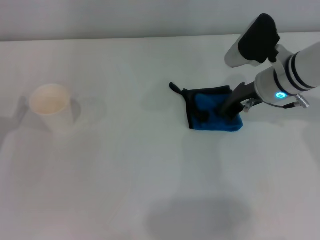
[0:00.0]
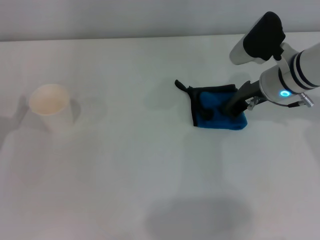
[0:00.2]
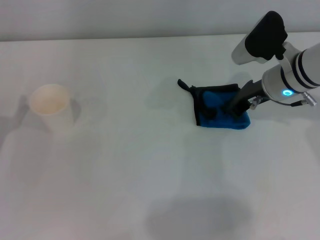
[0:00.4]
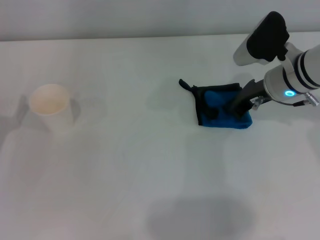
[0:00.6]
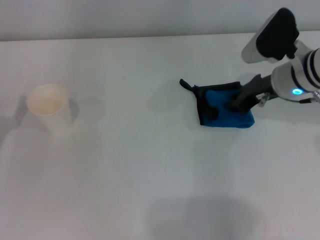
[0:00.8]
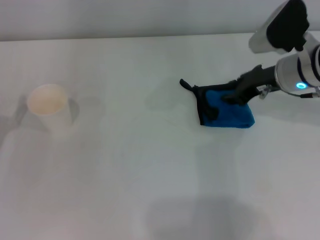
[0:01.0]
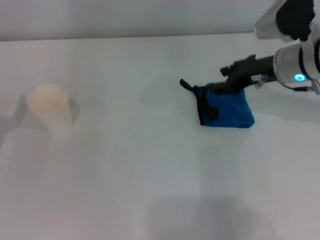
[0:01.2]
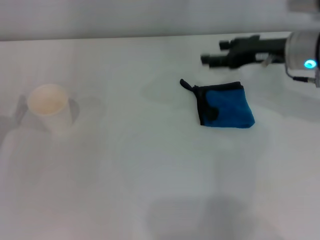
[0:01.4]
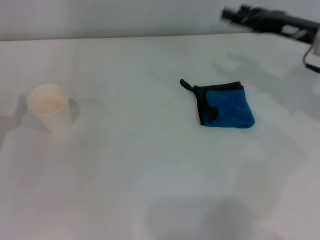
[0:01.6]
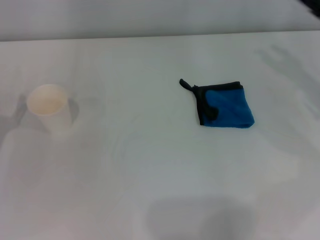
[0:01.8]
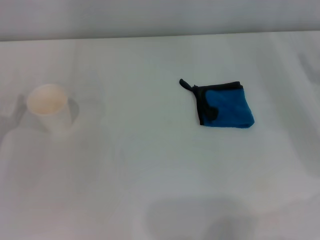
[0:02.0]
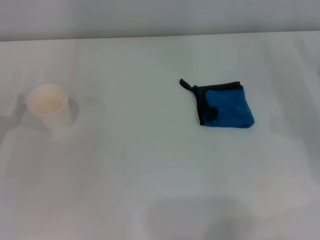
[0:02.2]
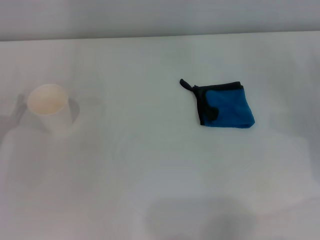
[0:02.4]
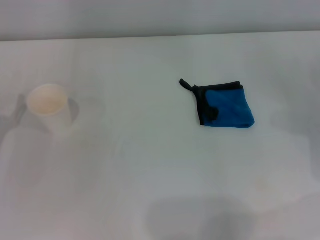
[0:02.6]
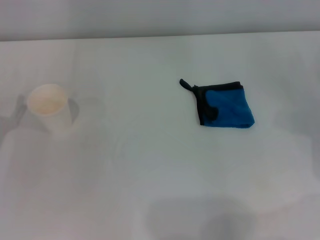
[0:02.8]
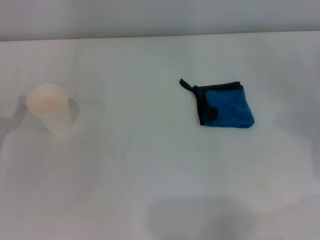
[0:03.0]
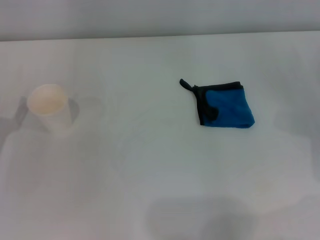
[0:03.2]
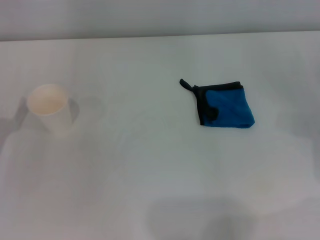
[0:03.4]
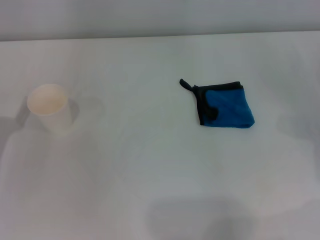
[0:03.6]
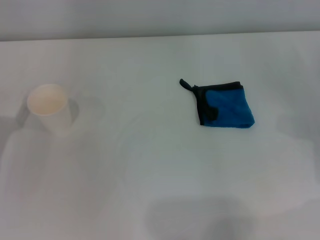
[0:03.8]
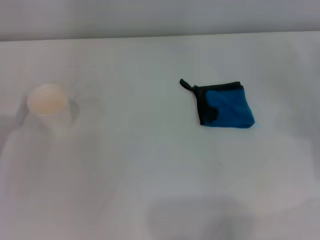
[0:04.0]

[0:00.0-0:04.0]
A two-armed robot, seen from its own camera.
Step, 0:00.0 to 0:00.6: Place the rag on the table with the right gripper.
0:00.0 to 0:01.4: The right gripper is displaced upward by approximately 5 cm, and opens up.
0:01.4 to 0:02.6: The right gripper shifts some 20 cm to the right, downward and backward.

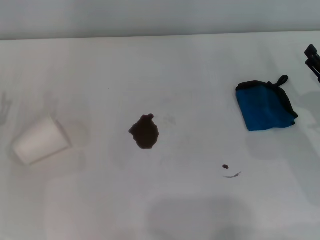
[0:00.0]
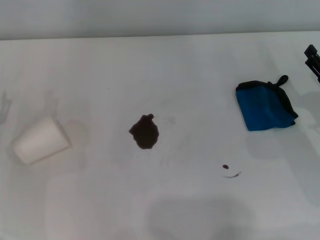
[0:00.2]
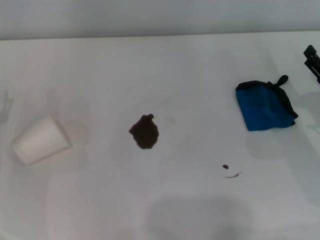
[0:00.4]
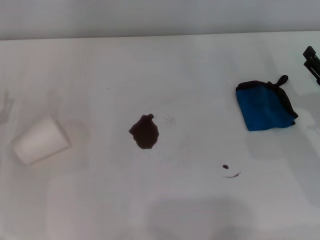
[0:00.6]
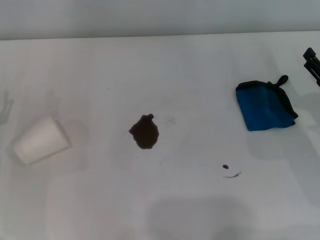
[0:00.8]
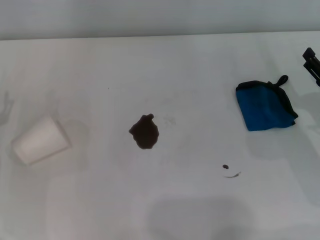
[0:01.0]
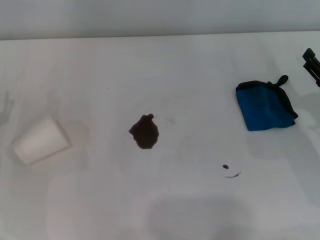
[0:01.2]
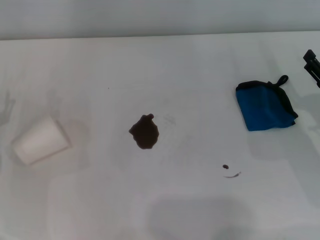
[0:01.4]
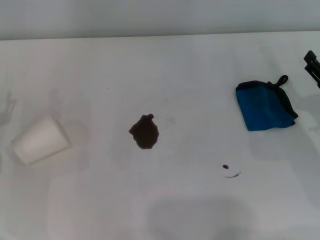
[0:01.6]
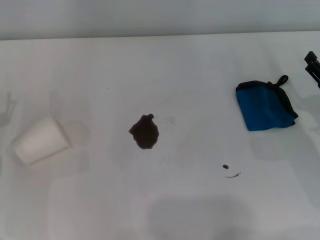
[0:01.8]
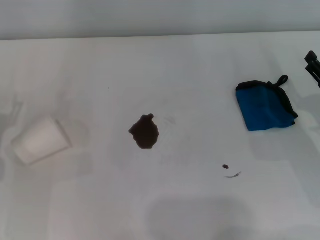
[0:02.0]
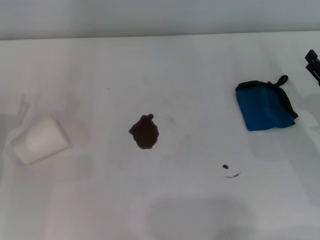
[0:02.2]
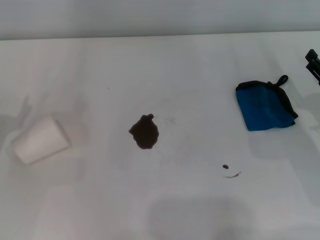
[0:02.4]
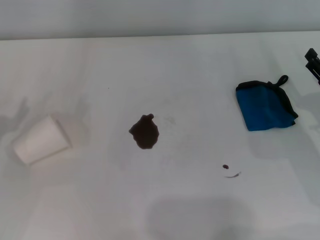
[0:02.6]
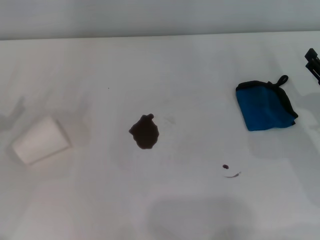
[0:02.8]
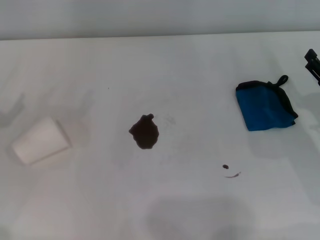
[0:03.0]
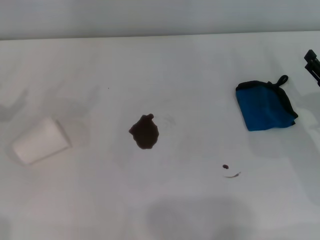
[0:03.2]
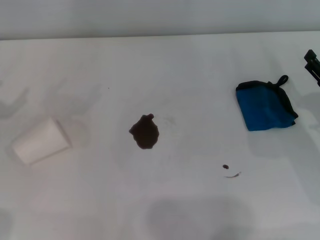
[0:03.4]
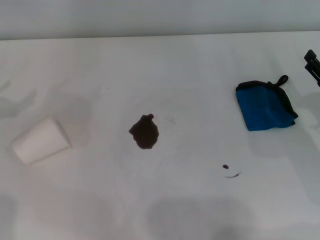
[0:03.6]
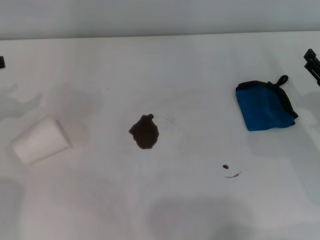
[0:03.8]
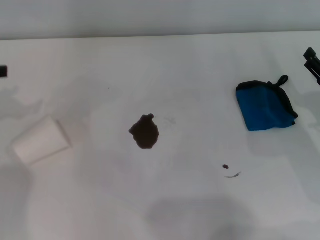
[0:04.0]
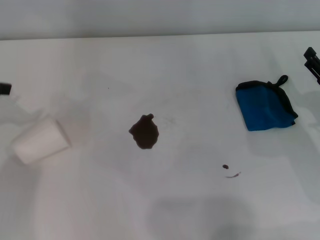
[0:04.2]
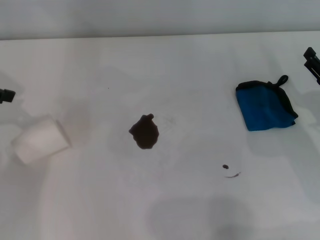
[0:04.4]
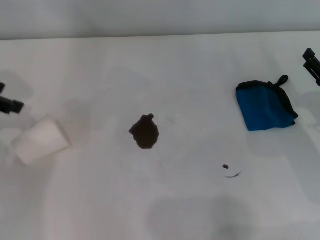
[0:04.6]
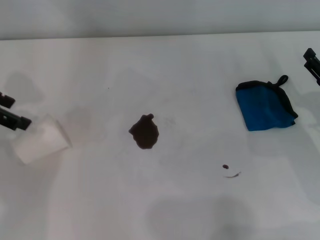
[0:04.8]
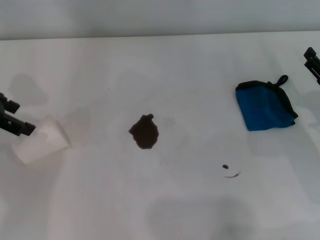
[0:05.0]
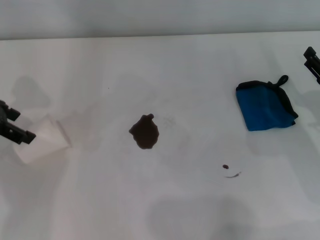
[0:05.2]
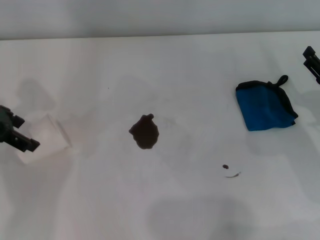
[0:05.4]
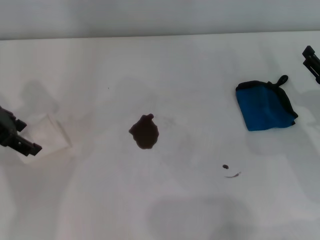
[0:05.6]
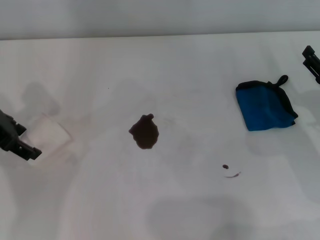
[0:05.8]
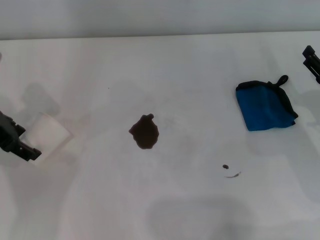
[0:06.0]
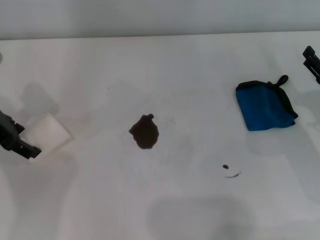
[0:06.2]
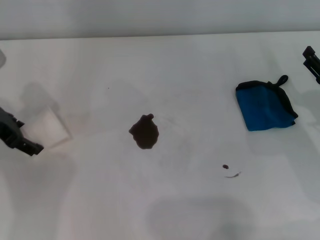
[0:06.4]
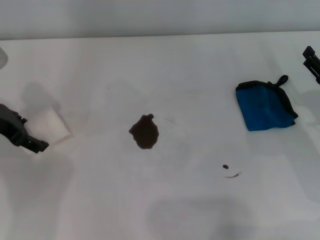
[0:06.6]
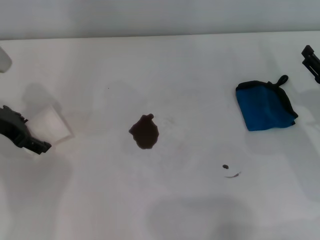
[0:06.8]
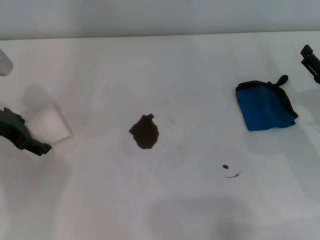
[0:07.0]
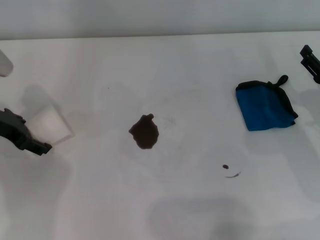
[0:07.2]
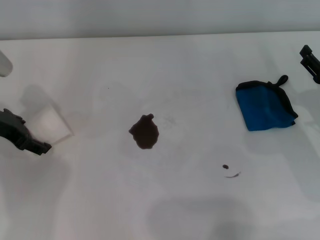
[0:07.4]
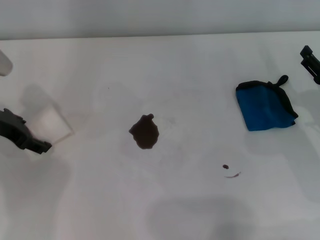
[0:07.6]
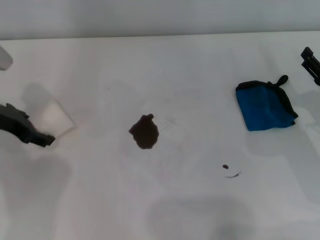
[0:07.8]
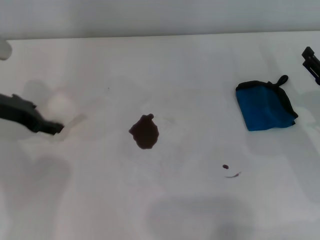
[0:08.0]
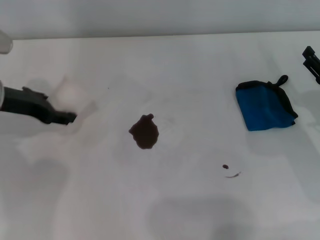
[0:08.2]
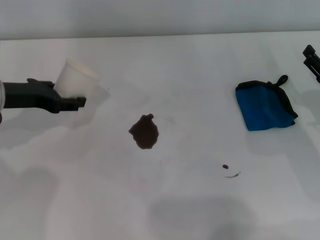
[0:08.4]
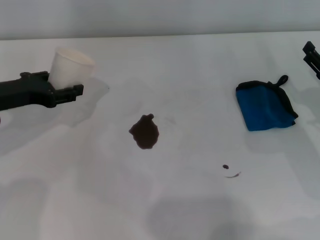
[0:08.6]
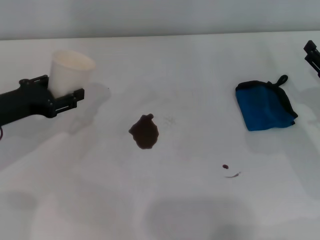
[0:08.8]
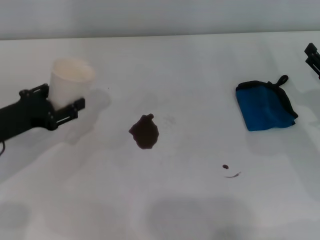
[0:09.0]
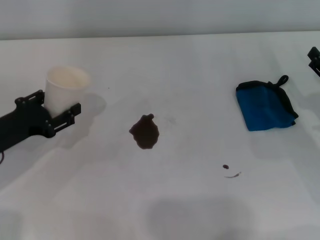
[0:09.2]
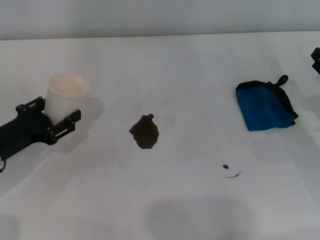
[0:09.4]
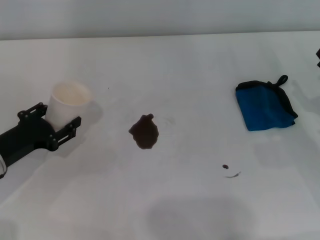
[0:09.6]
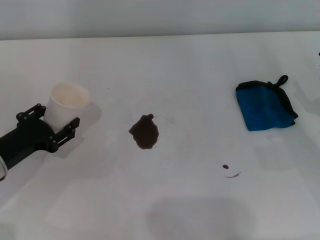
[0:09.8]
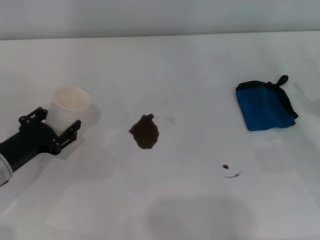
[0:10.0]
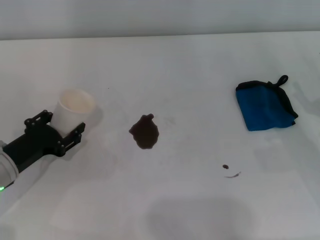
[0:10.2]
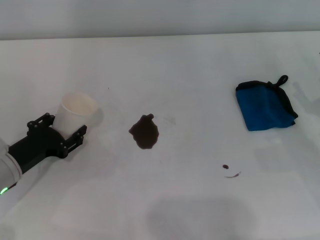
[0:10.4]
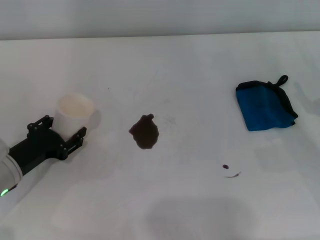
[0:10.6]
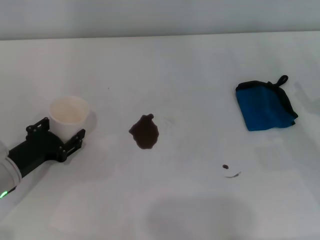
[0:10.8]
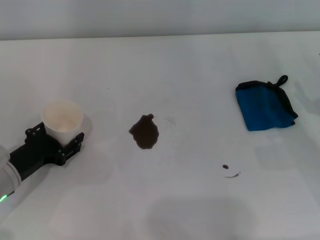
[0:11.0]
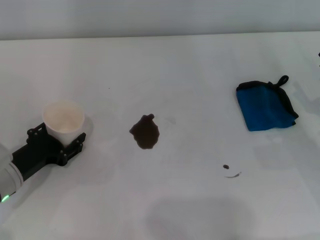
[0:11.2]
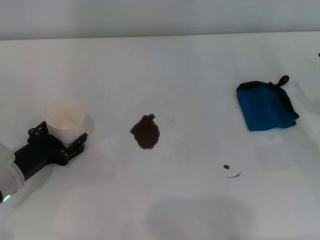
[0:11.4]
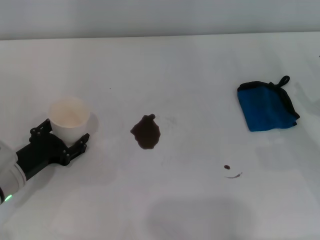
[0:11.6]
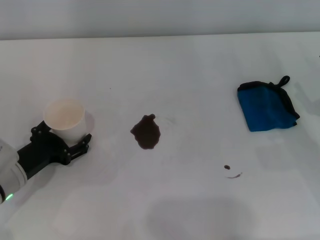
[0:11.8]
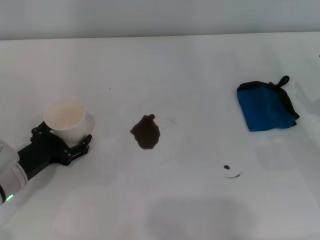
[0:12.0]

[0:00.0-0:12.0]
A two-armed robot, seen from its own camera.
Step, 0:00.0 to 0:07.4: Grasp the paper cup with the left gripper.
0:00.0 to 0:01.6: The two grippers keep their place.
0:04.4 to 0:06.0: The left gripper shifts roughly 10 cm to the right and downward.
0:06.0 to 0:07.6: The left gripper closes up.
0:07.6 to 0:09.0: The left gripper heads backward, covering approximately 5 cm, and closes up.
0:09.0 to 0:10.4: The left gripper shifts approximately 5 cm downward.
0:10.4 to 0:12.0: The left gripper opens.

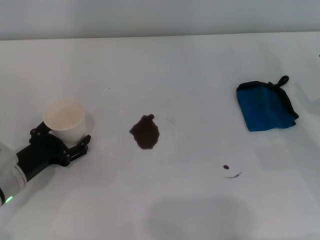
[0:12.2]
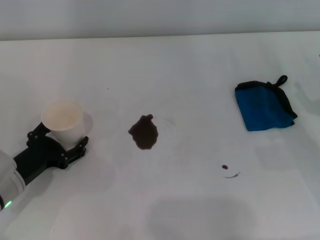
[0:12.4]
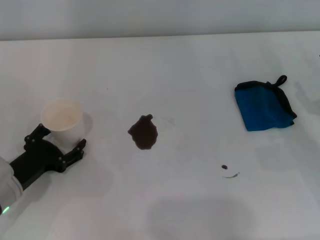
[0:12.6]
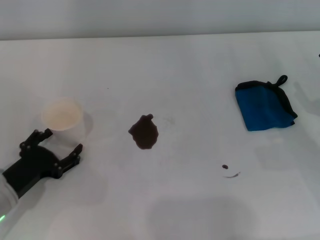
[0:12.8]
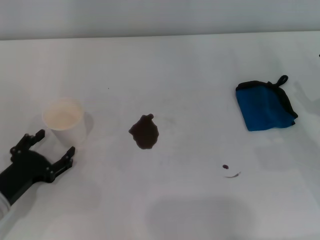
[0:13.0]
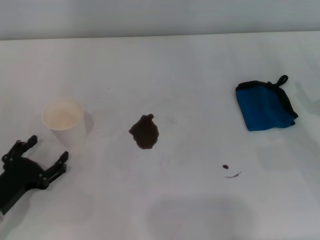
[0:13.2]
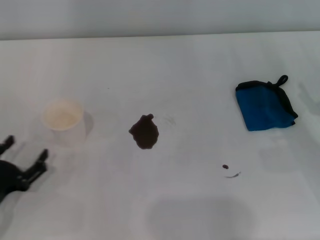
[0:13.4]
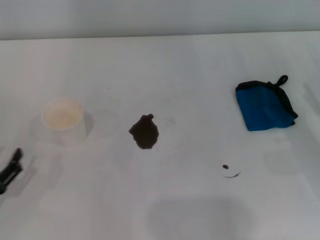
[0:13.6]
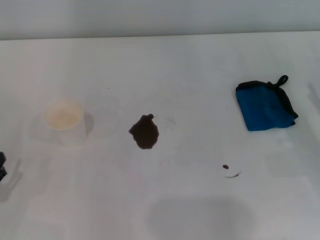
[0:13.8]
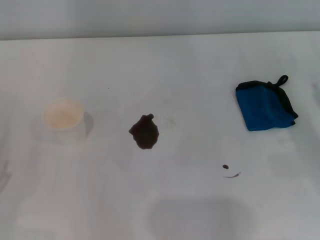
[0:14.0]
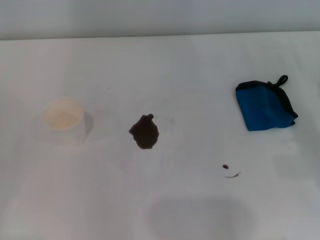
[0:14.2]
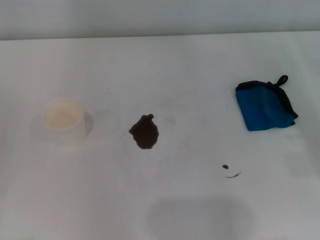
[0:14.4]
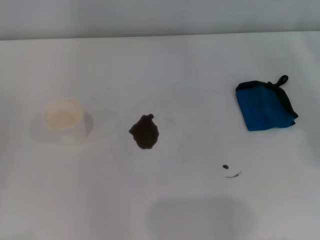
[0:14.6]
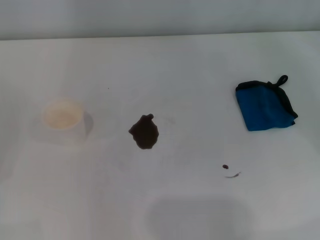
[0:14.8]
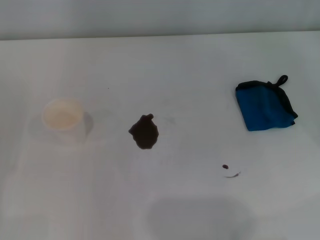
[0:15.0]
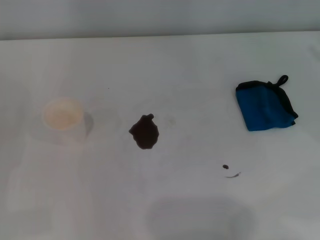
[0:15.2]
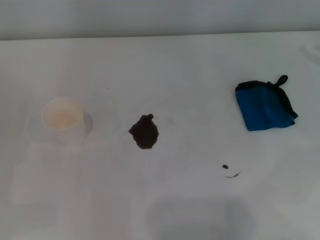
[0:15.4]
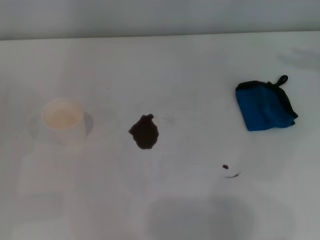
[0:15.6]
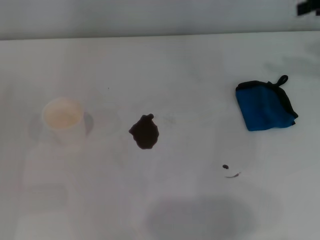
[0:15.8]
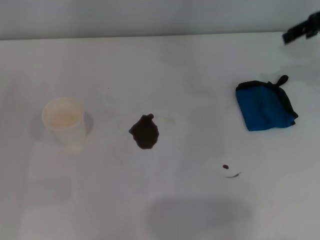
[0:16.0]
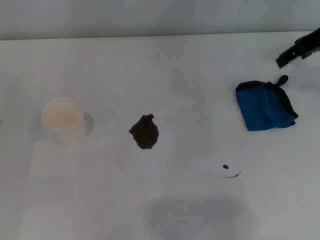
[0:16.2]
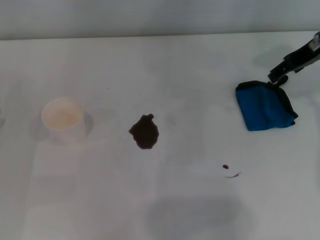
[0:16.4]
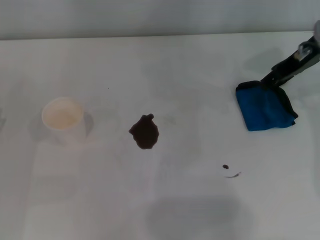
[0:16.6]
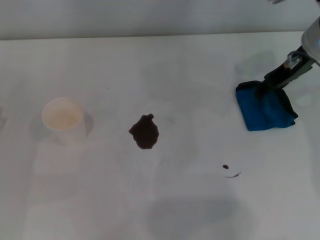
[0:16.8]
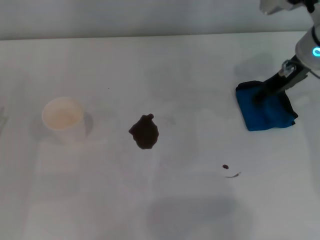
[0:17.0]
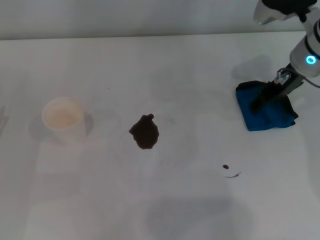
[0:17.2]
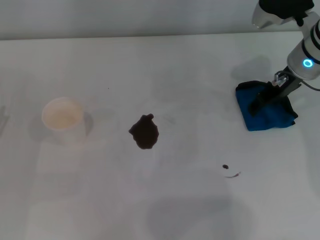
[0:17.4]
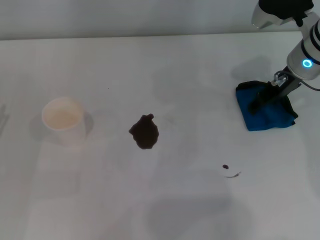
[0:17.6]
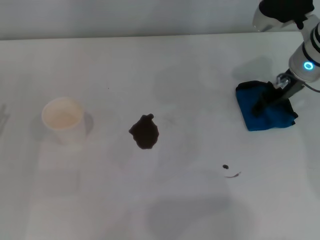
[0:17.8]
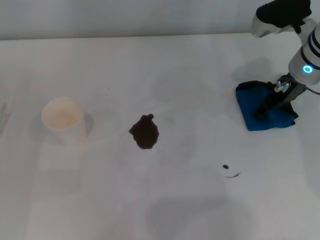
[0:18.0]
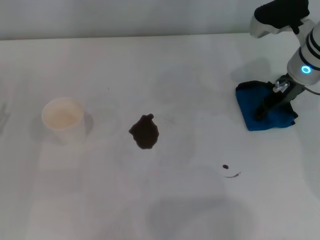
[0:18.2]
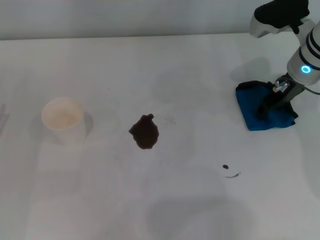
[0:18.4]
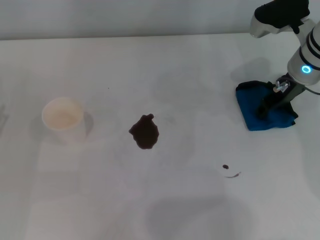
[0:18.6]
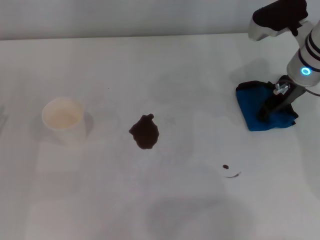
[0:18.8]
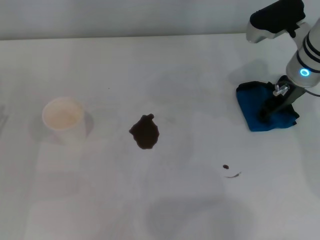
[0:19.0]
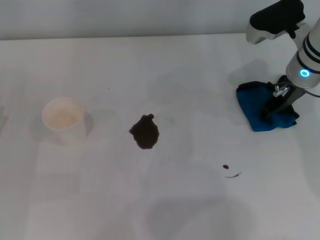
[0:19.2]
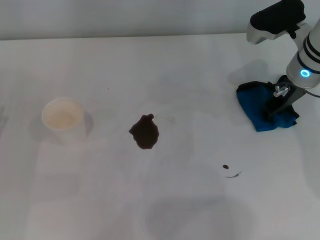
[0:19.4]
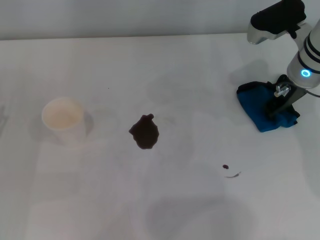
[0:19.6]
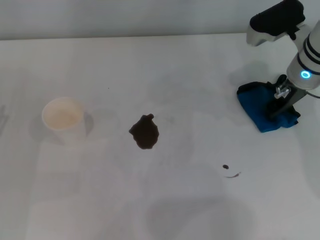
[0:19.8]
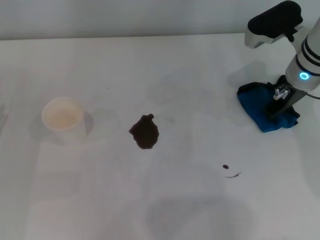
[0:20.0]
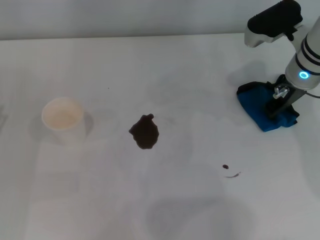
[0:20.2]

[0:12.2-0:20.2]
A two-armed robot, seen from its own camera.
Step, 0:12.6 to 0:20.2: Grasp the rag with the right gripper.
0:12.2 to 0:13.8: The left gripper moves backward and to the left, some 15 cm.
0:13.8 to 0:15.4: The right gripper shifts some 25 cm upward, forward and to the right. Meanwhile the left gripper ends up approximately 5 cm from where it was.
0:15.4 to 0:17.0: The right gripper travels to the left by roughly 20 cm.
0:17.0 to 0:18.6: The grippers stay close to where they were, moving slightly.
0:18.6 to 0:20.2: The right gripper closes its fingers.
